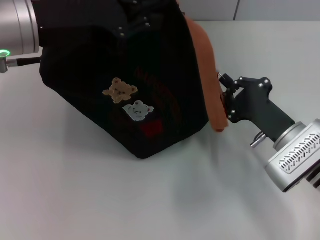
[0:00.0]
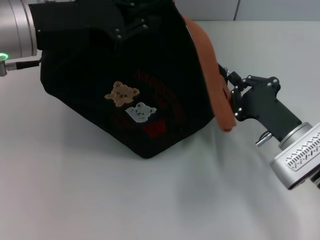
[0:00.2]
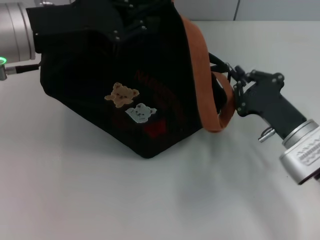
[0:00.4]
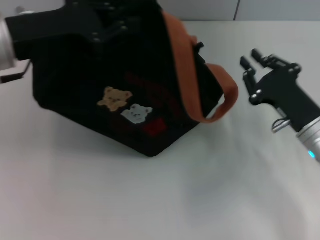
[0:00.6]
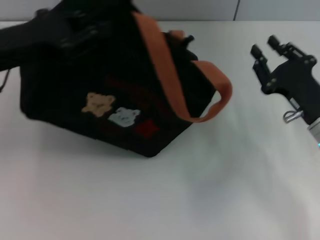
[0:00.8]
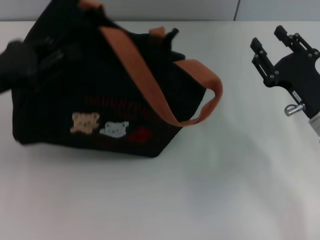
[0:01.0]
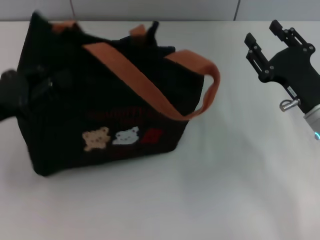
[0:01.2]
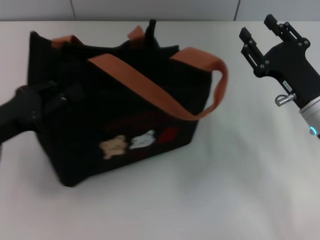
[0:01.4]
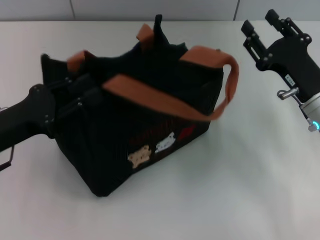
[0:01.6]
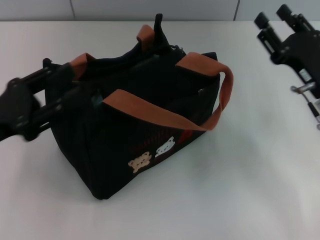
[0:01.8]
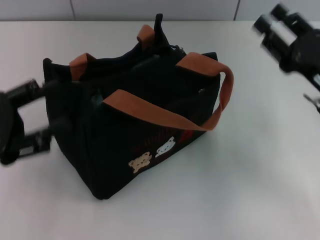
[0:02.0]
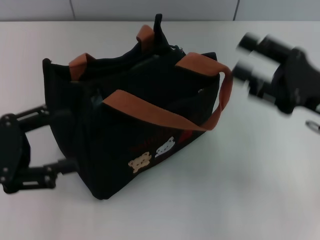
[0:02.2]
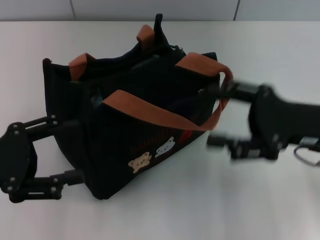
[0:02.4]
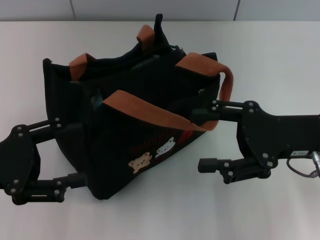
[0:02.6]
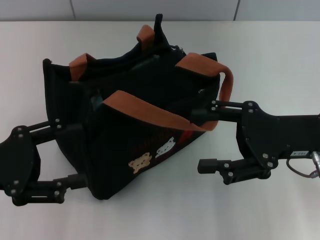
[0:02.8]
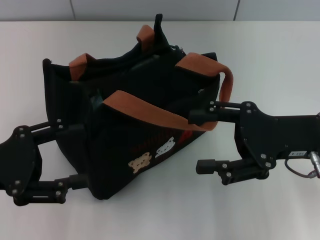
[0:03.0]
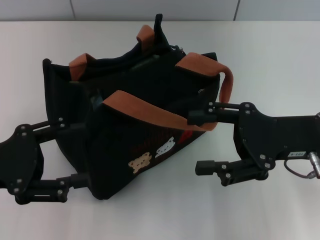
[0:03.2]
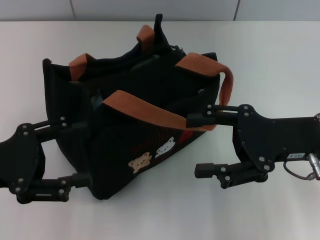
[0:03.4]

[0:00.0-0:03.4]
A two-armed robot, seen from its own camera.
Step, 0:00.6 to 0:01.6: Grab the bag with your left hand.
0:00.0 to 0:01.6: The left gripper travels downward, to the left and backward by approximately 20 cm, while the right gripper shifts by about 5 cm, and opens.
0:01.6 to 0:03.4: The right gripper goes roughly 5 cm upward. The left gripper opens up.

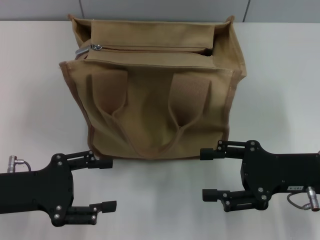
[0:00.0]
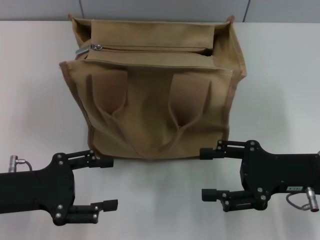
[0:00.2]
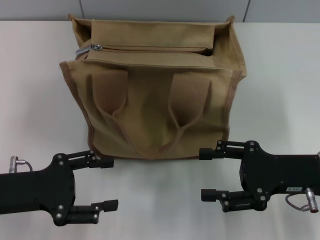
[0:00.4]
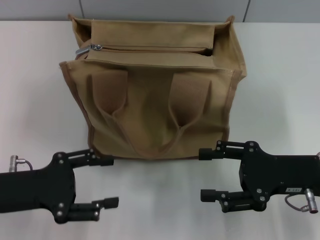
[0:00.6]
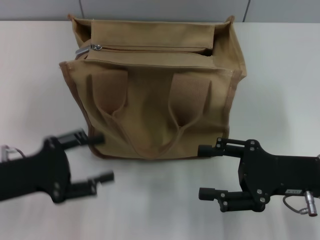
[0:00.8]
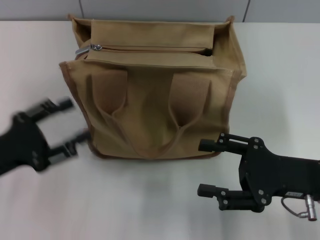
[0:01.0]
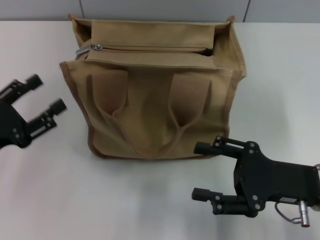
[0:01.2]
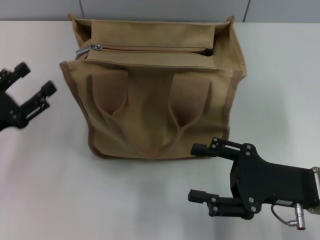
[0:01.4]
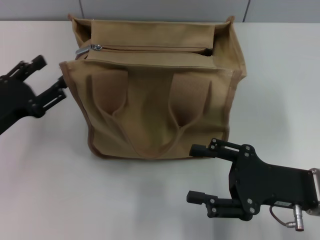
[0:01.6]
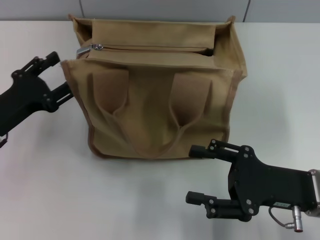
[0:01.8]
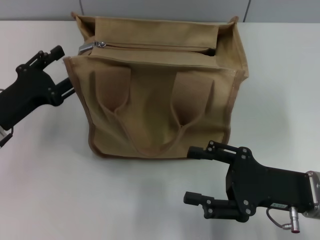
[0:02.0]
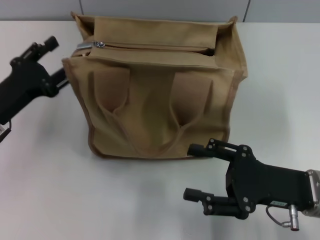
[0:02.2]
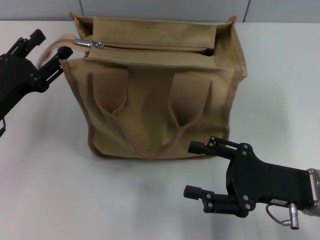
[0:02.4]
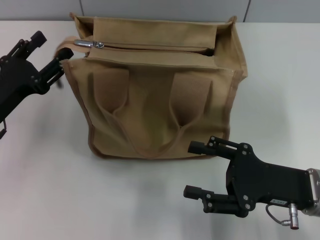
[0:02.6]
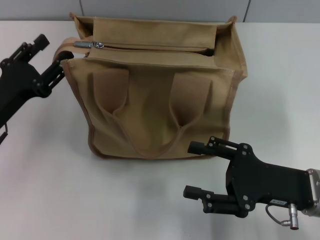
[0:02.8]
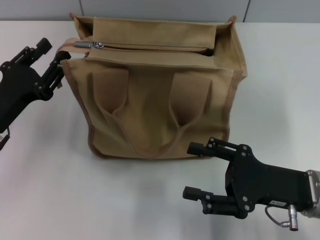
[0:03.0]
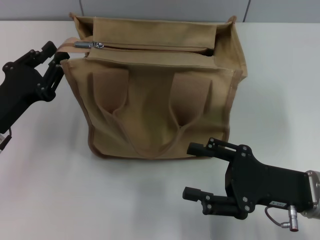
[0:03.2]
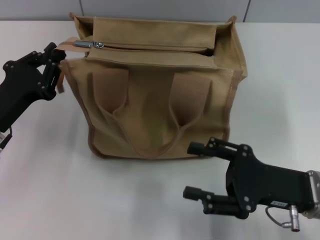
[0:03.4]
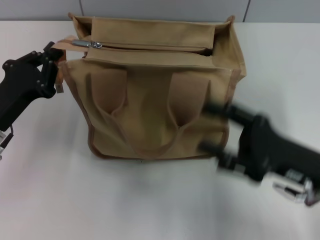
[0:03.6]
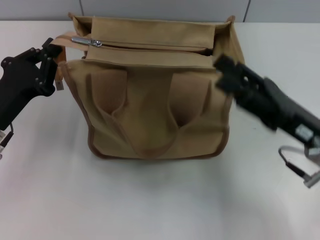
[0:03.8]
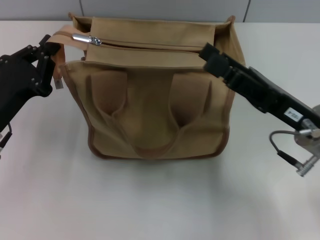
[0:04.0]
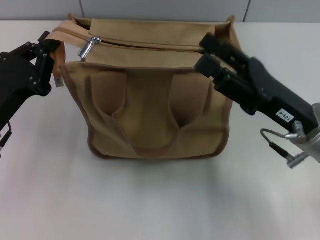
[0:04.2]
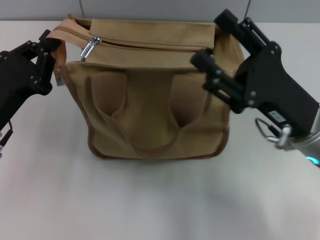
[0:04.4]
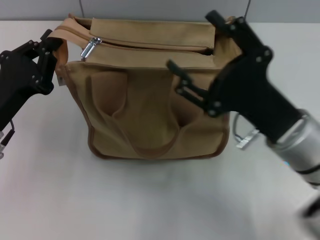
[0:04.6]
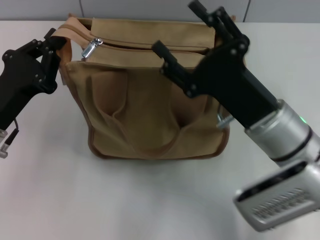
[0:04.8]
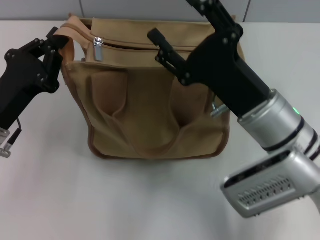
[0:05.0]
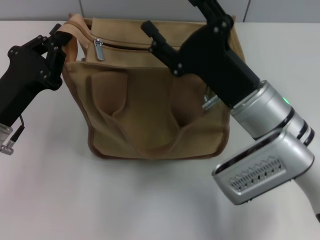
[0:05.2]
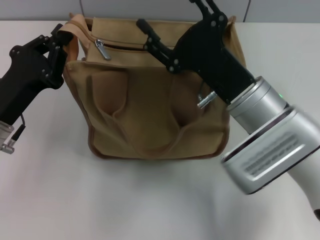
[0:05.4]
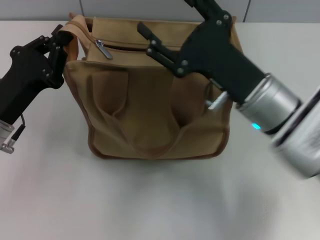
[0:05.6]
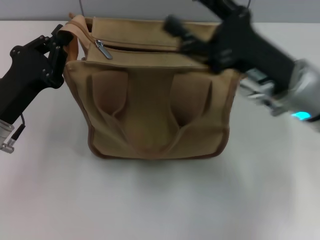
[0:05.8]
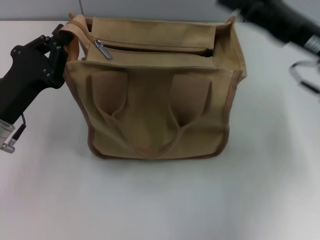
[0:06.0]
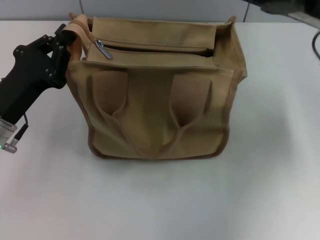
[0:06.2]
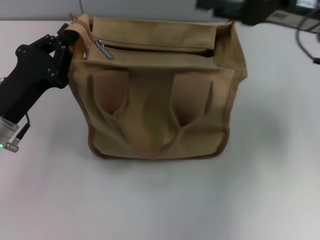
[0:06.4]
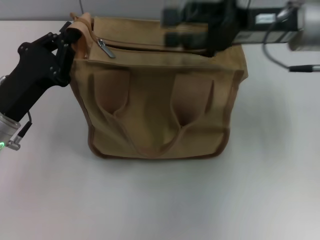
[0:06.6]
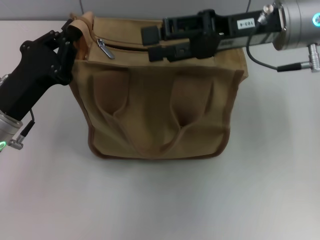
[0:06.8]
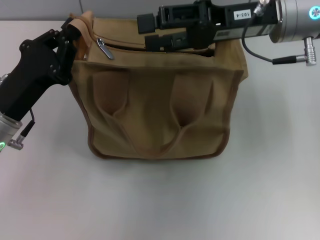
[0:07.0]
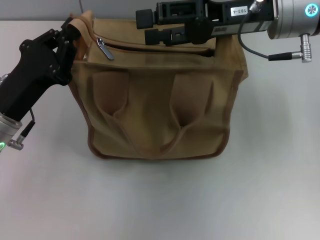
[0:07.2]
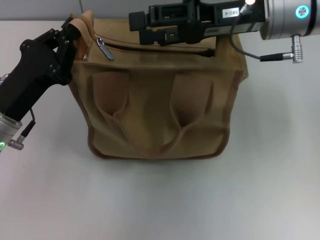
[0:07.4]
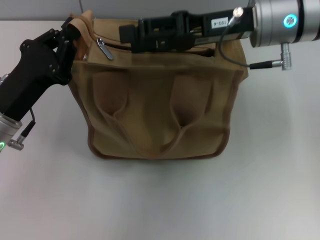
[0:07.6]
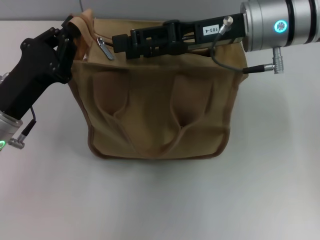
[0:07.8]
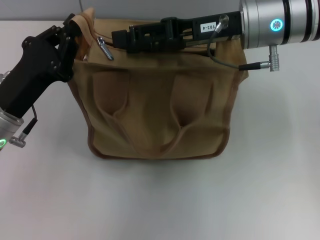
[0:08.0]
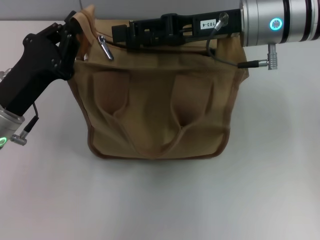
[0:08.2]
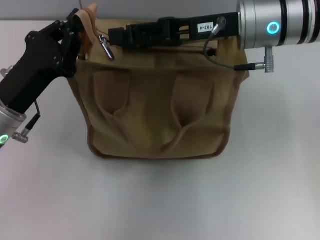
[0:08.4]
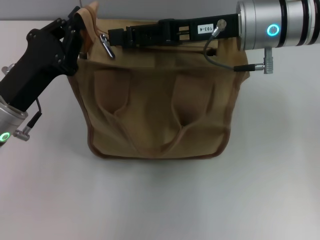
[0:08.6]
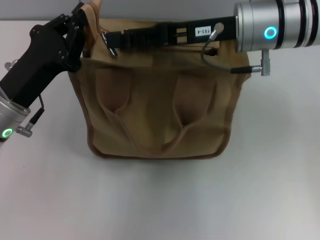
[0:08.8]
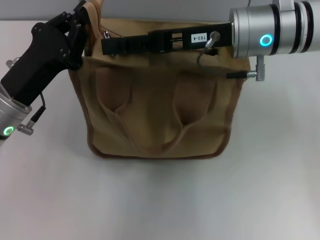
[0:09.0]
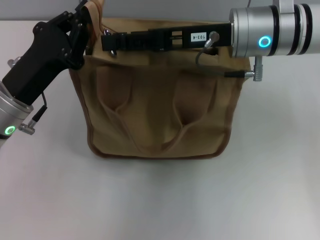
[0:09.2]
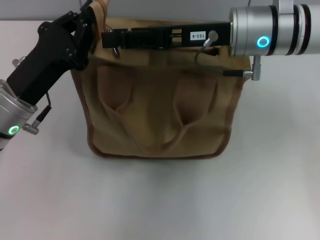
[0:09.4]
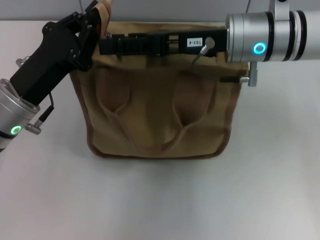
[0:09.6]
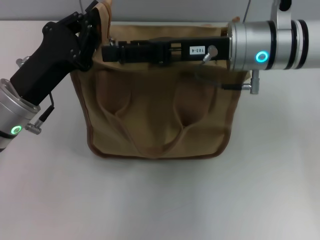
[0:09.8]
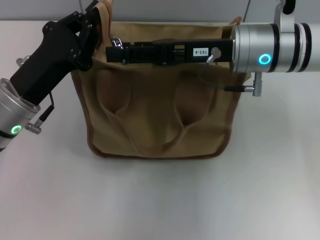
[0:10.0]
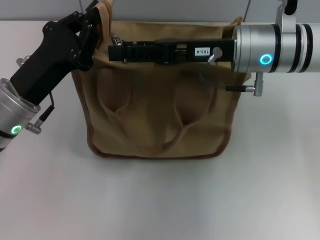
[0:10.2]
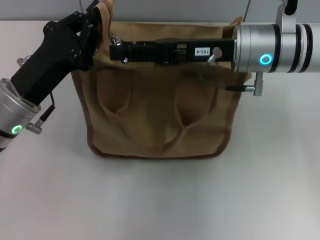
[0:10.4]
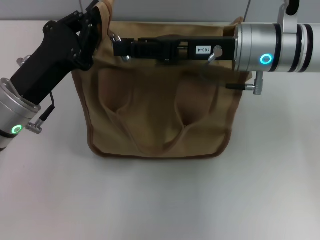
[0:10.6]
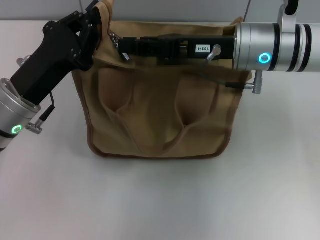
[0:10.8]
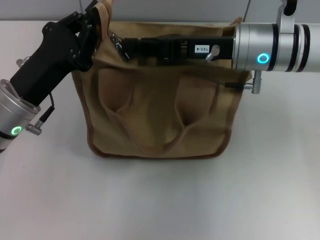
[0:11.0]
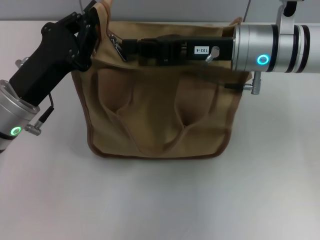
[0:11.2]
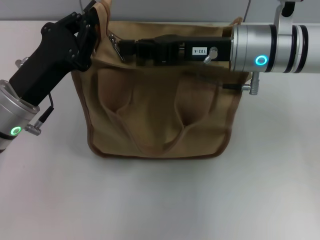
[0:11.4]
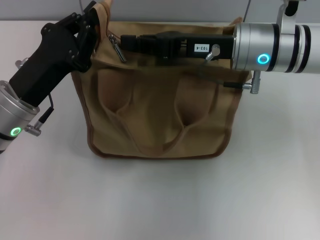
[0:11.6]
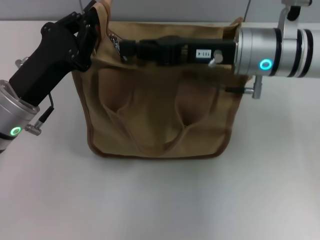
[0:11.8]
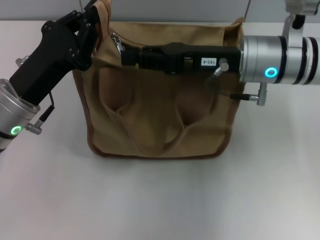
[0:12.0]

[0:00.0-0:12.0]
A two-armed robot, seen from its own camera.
0:01.6 to 0:03.0: There are only small adjustments of the grippers.
0:03.0 to 0:04.4: The right gripper ends up approximately 5 cm from where it was. The left gripper closes up.
0:04.4 to 0:06.0: The right gripper heads forward and upward, covering about 10 cm.
0:06.0 to 0:07.6: The right gripper shifts some 10 cm to the left and forward.
0:07.6 to 0:10.4: There are only small adjustments of the grippers.
0:10.4 to 0:12.0: The right gripper closes its fingers.

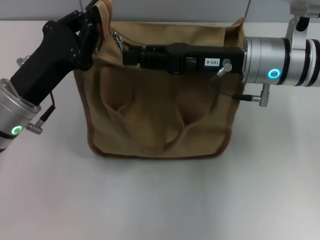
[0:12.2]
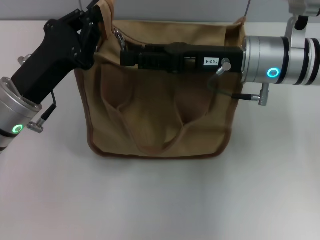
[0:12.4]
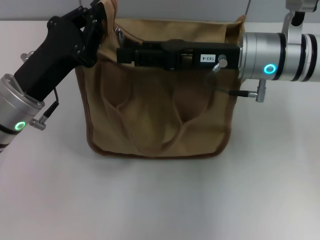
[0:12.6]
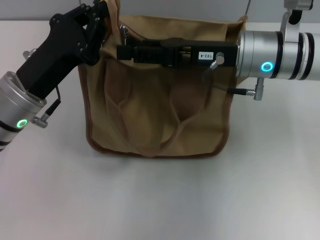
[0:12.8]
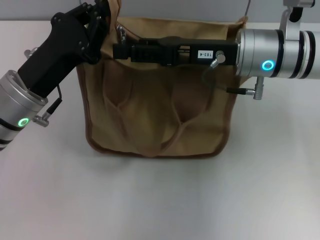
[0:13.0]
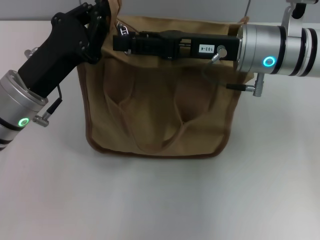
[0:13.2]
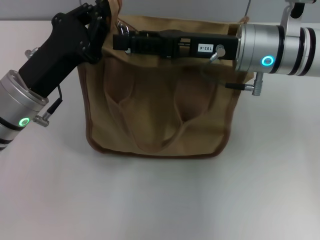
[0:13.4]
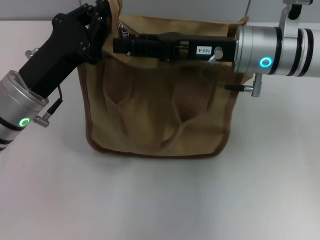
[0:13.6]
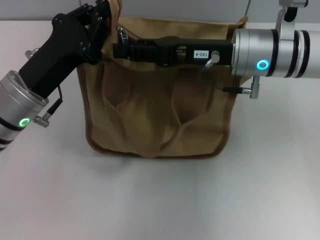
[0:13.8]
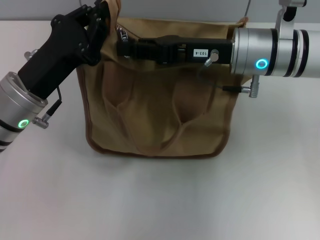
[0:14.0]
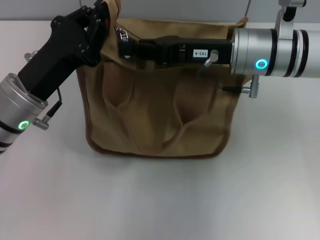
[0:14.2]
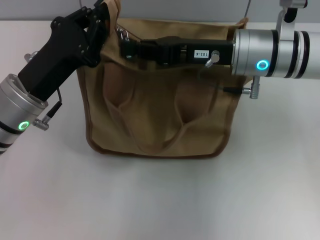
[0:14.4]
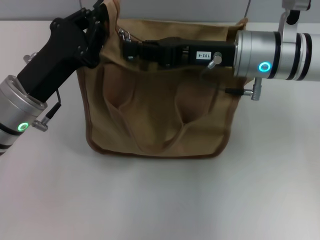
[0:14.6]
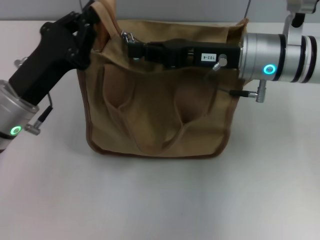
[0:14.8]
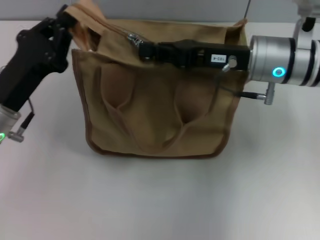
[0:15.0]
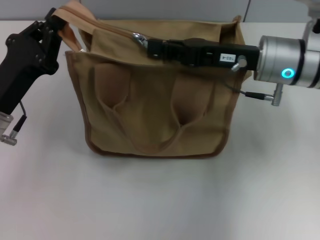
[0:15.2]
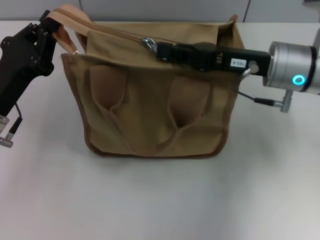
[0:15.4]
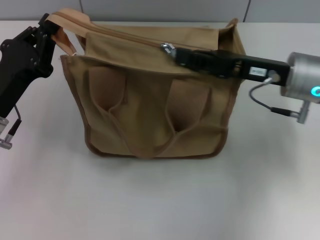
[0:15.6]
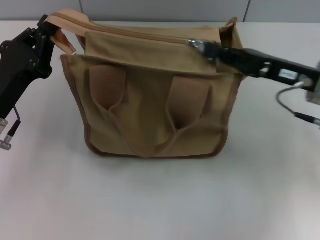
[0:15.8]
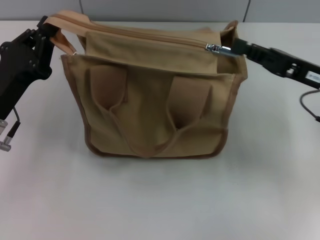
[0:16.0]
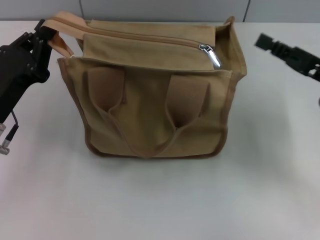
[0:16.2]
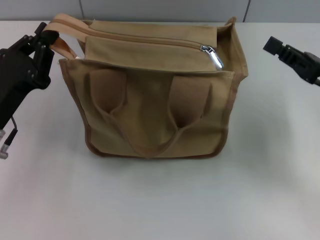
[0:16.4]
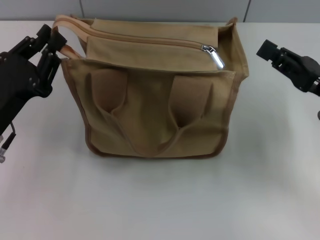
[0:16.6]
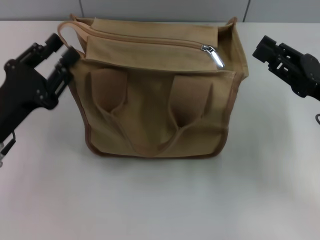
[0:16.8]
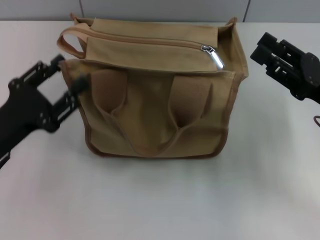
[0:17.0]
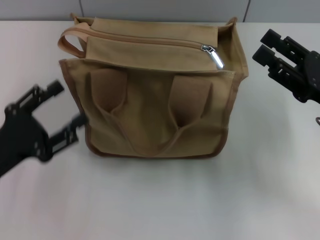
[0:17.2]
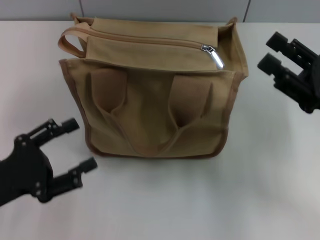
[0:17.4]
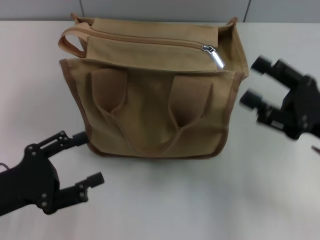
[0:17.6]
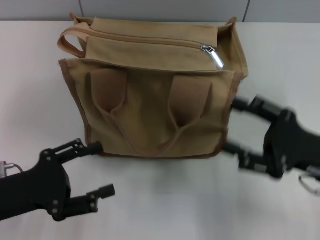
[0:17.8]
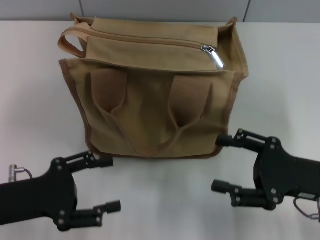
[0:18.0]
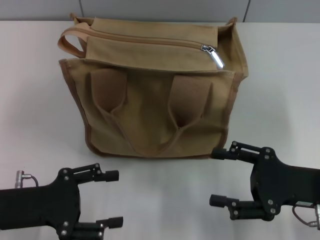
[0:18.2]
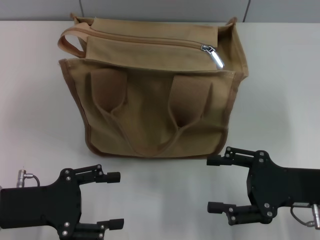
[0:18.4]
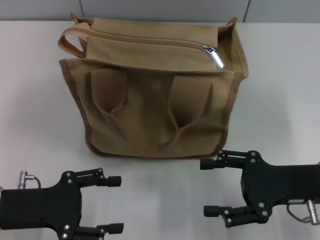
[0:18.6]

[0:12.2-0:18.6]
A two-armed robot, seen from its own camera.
Step, 0:12.2 to 0:16.2: Pull up the zipper with your right hand.
Step, 0:16.4 to 0:17.0: Grab the zipper with your left hand.
0:12.2 to 0:13.8: The grippers move only a little.
0:13.8 to 0:15.4: The right gripper moves to the right, approximately 5 cm, and closes up, while the left gripper shifts by about 5 cm.
0:15.4 to 0:17.0: The right gripper shifts roughly 10 cm to the right and backward, and opens its fingers. The left gripper opens.
0:17.0 to 0:18.6: The right gripper ends up approximately 5 cm from where it was, and opens, while the left gripper opens up.
